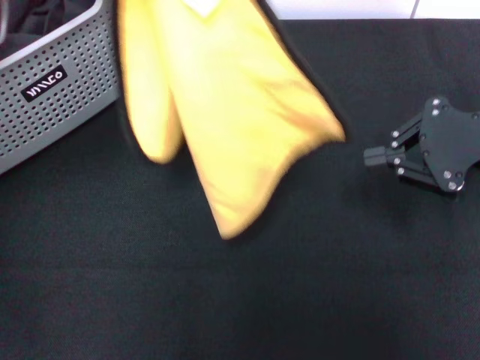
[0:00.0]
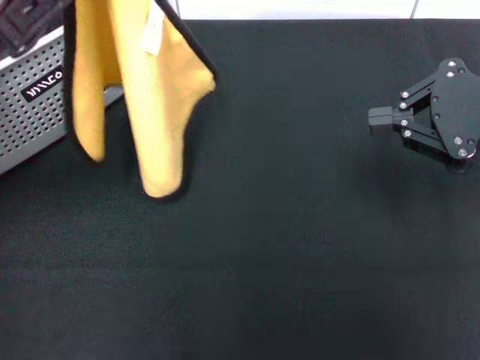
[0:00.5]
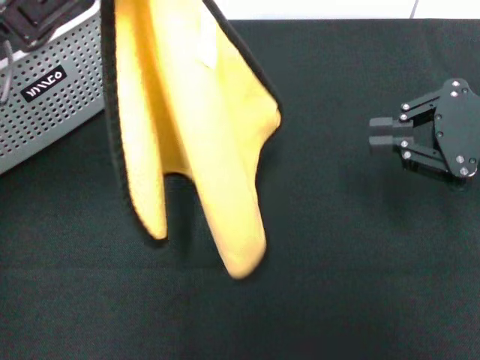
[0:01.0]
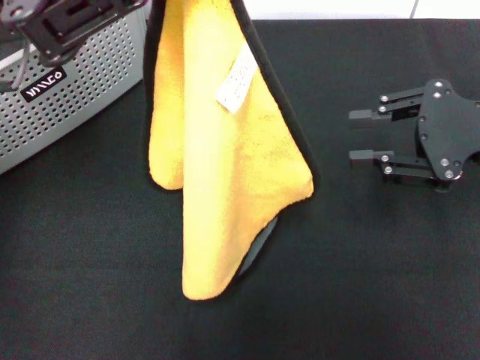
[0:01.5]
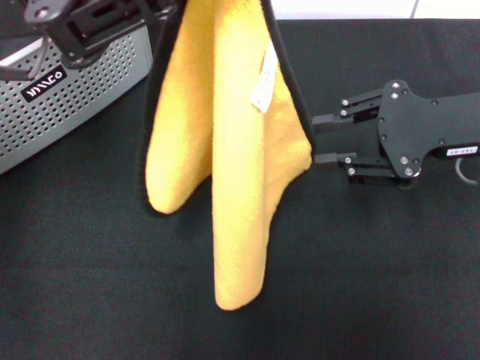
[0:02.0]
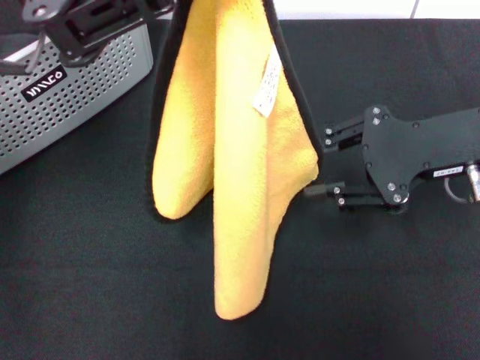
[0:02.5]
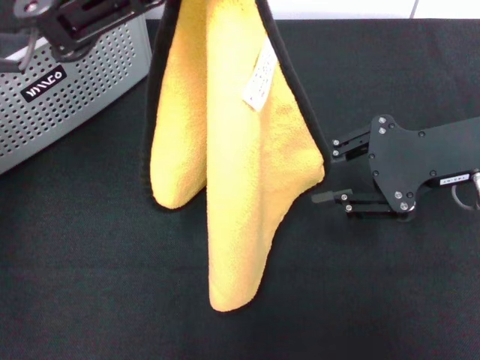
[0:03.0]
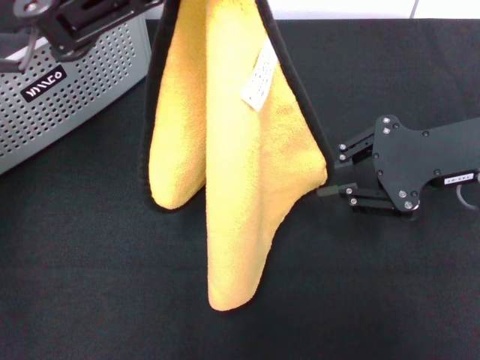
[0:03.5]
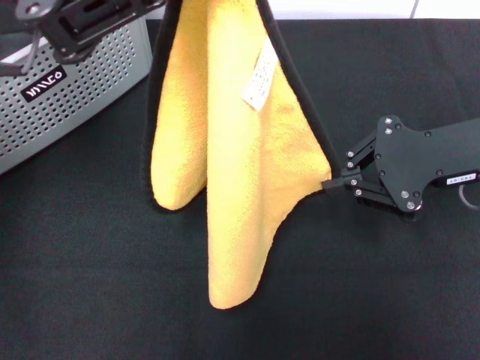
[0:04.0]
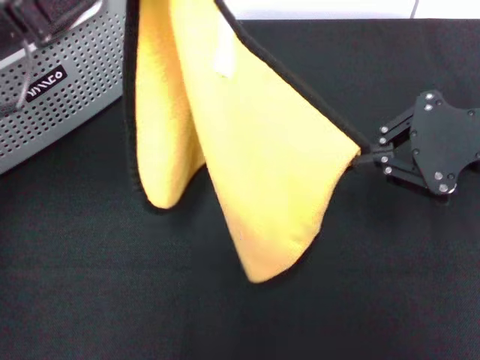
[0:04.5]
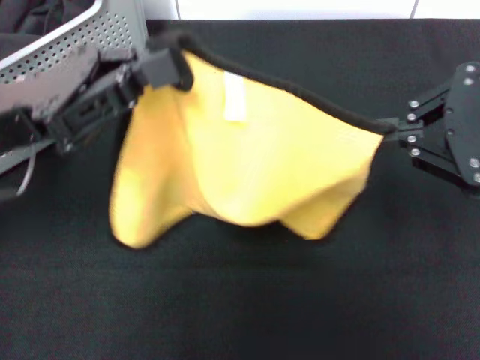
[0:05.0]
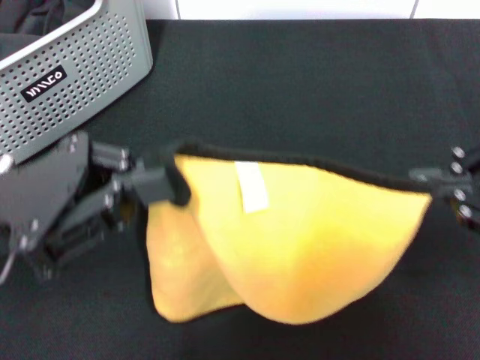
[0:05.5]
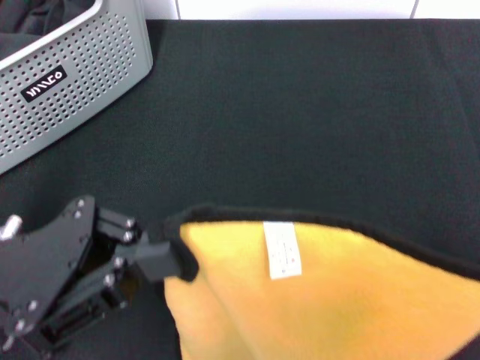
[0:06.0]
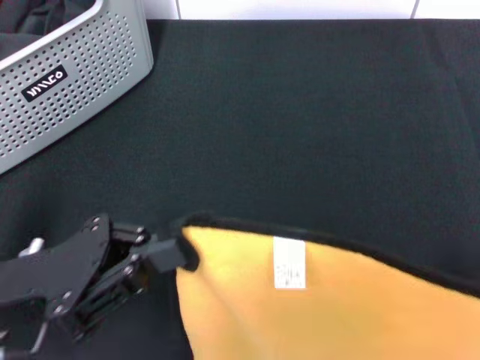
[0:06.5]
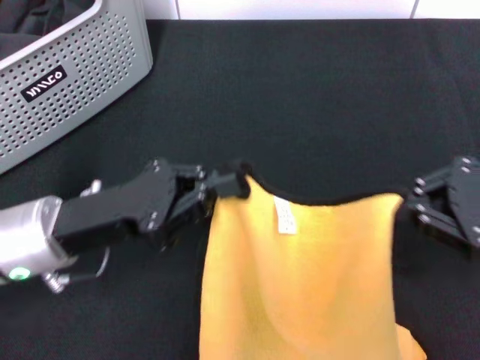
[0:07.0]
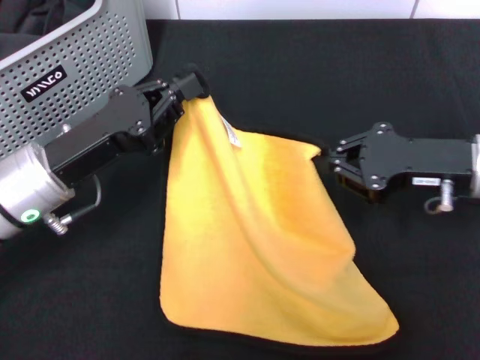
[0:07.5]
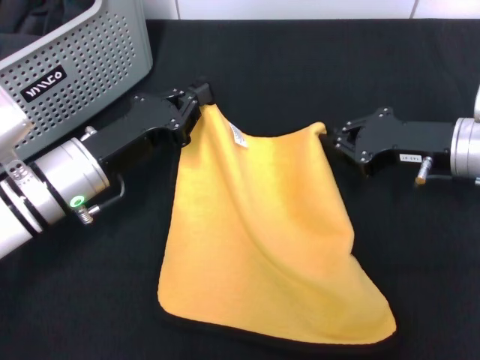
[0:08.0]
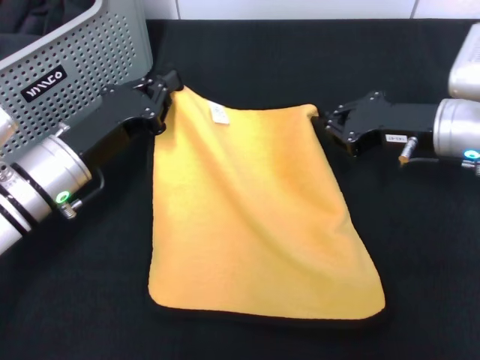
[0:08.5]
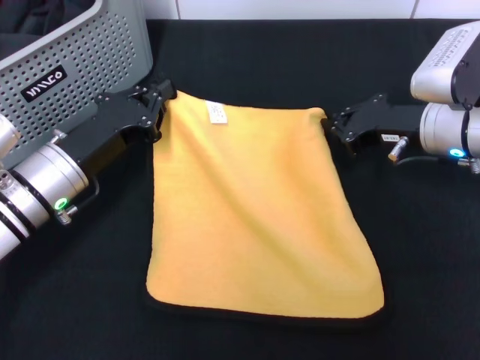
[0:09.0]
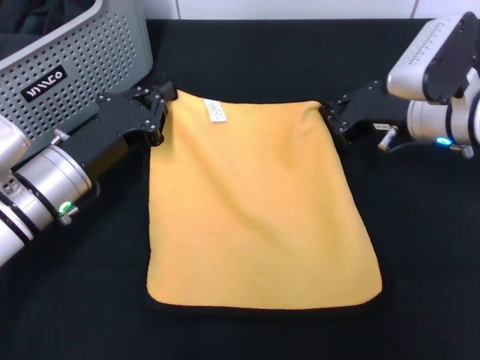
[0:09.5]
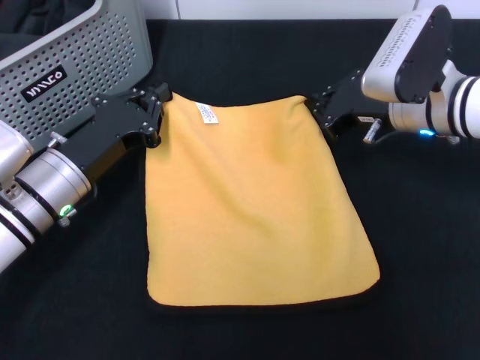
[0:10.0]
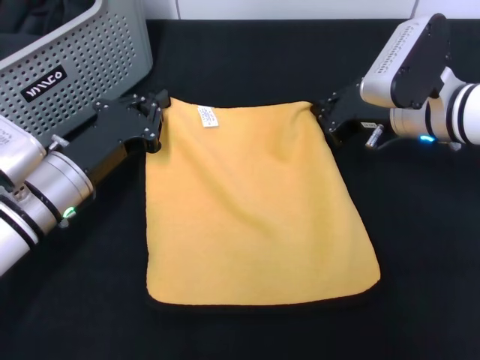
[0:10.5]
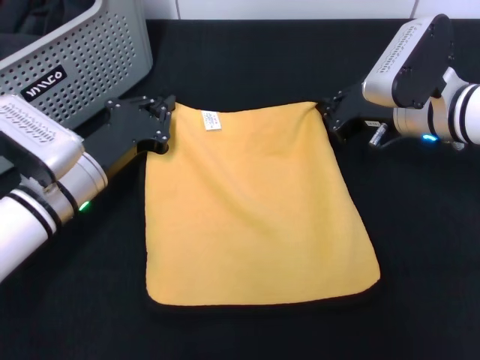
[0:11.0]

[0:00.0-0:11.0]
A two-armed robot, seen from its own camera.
Task of the whole recording: pick up the towel from the storage box and lay it flat on the black tablecloth.
0:00.0 to 0:02.0: The right gripper opens up. Meanwhile the left gripper shifts by roughly 5 cm.
0:02.0 to 0:03.5: The grippers make only small movements.
0:03.5 to 0:05.5: The right gripper heads backward and upward, covering some 15 cm; the left gripper is displaced downward and backward by about 15 cm.
0:05.5 to 0:07.5: The right gripper travels downward and forward by some 20 cm, while the left gripper heads downward and forward, covering about 10 cm.
0:07.5 to 0:09.0: The right gripper moves forward, approximately 5 cm.

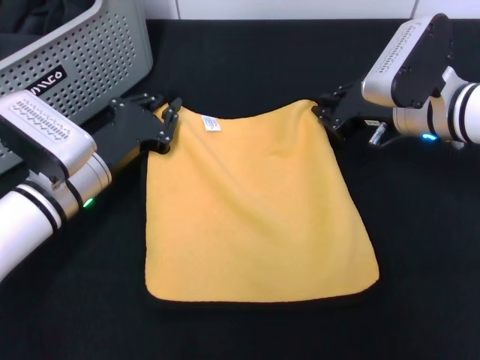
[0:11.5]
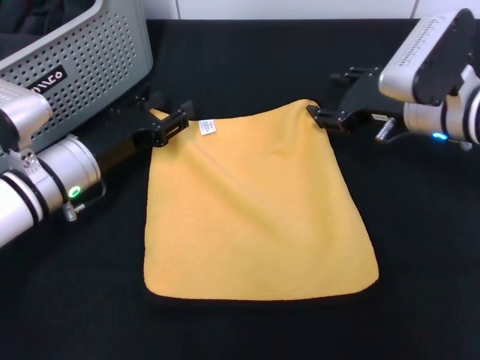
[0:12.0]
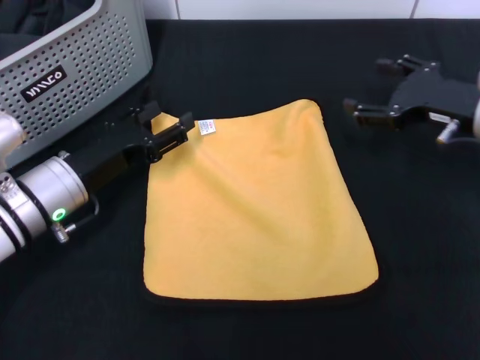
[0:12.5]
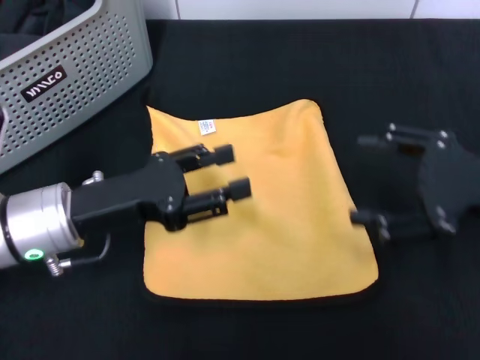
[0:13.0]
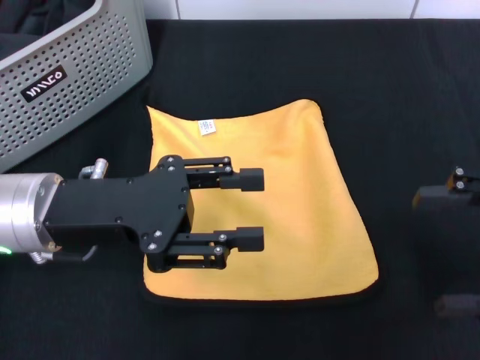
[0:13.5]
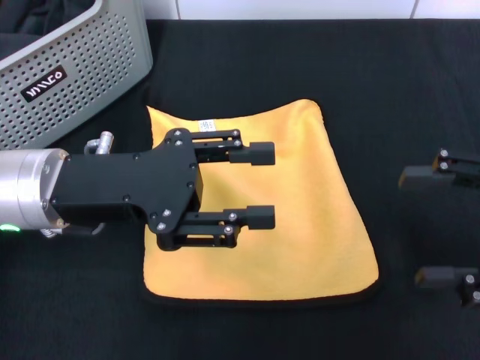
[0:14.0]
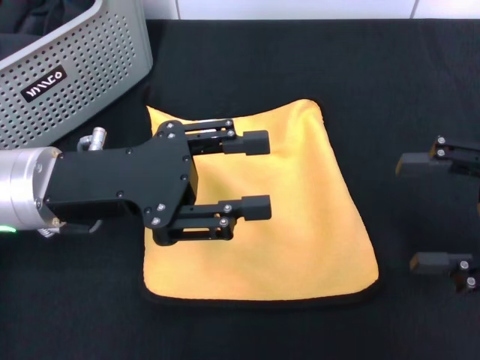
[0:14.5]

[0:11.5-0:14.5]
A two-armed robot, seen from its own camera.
Task of the whole recording: pick up the towel from the storage box and lay it flat on the black tablecloth.
0:11.5 to 0:13.0: The left gripper is displaced backward and upward by some 10 cm, and opens. Meanwhile the right gripper is displaced backward, to the right and upward by about 15 cm, and opens its fingers.
0:13.0 to 0:14.5: The left gripper shifts about 5 cm upward.
